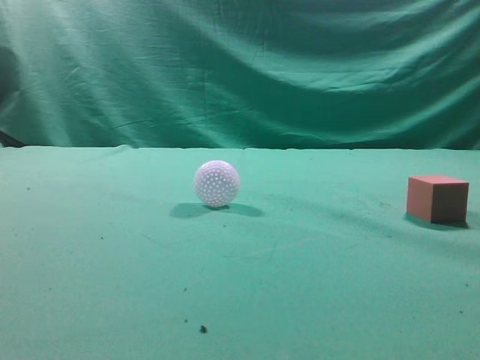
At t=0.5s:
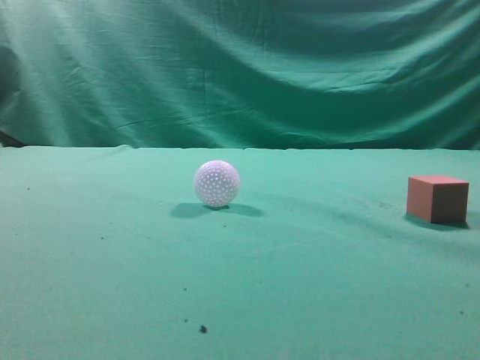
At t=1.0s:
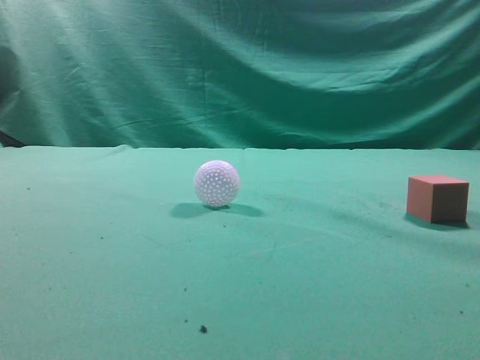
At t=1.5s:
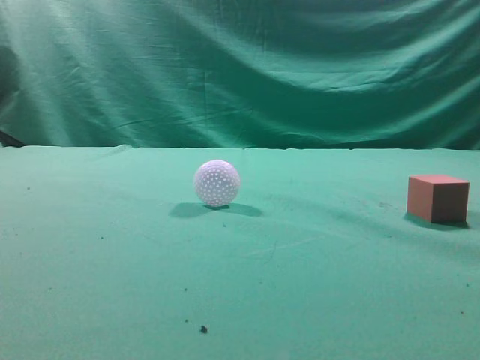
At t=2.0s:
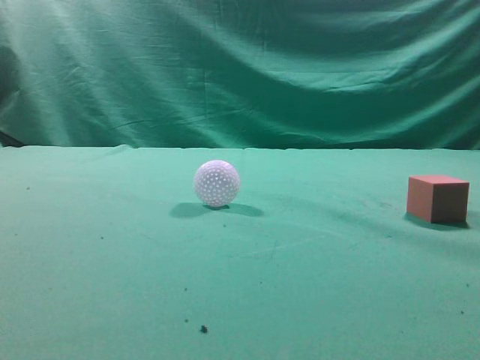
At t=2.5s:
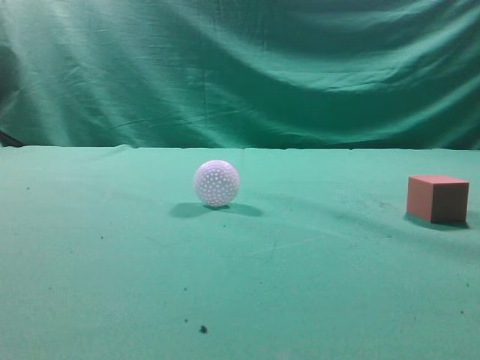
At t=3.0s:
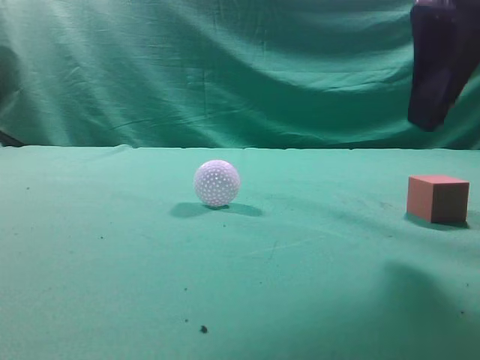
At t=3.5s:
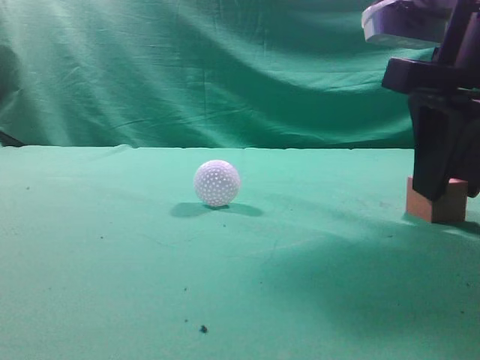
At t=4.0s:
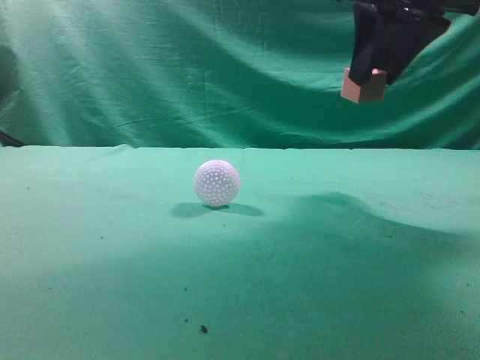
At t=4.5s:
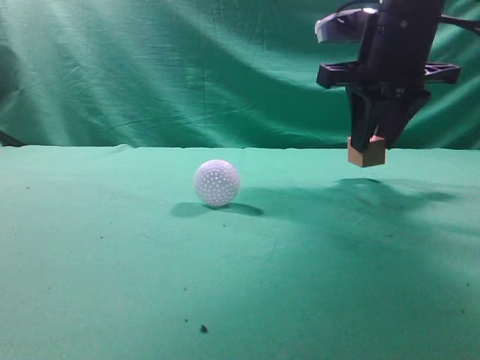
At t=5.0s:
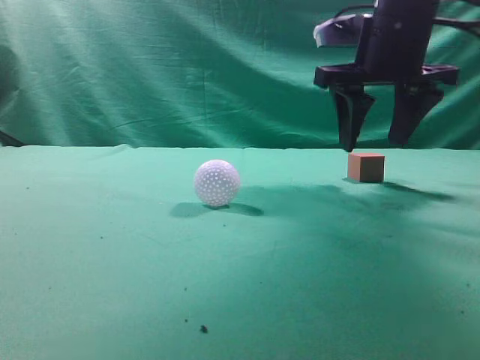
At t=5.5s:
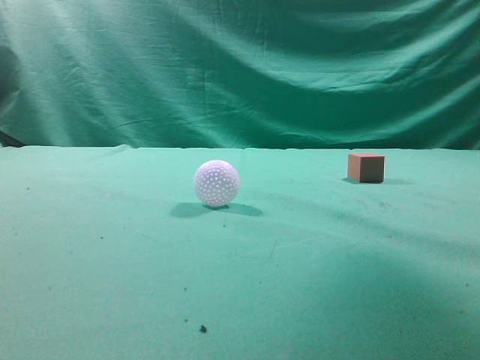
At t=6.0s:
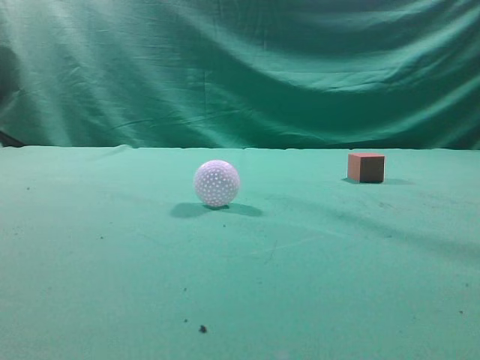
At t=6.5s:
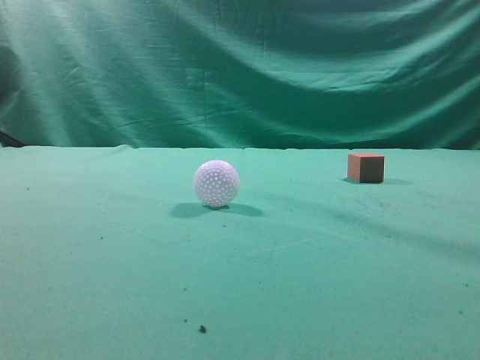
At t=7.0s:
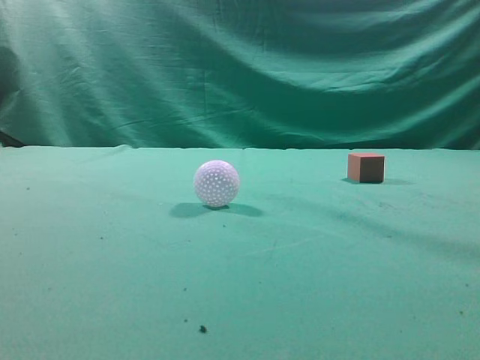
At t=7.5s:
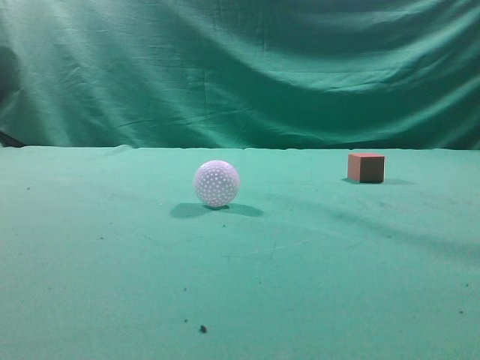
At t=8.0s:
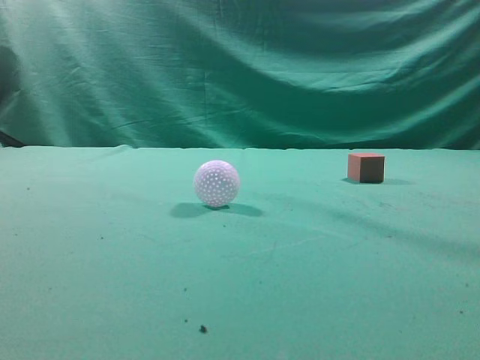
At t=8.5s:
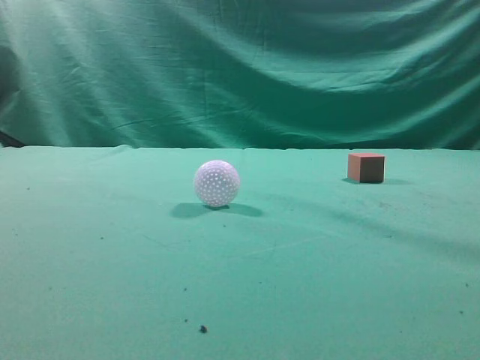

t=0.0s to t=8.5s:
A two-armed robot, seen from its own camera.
Task of the whole recording: pick up the cube block and place it in another position on the table.
Step, t=0.0s to t=3.5s: Pick up the small cube.
Step, t=4.0s to t=4.5s: Place the small cube on the ahead of the table.
t=2.0s to t=4.0s: The right gripper travels forward and to the left by roughly 25 cm, and opens its fingers.
t=4.0s to t=6.5s: The right gripper moves backward and to the right, some 30 cm, and closes up.
